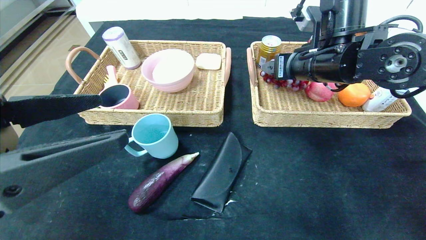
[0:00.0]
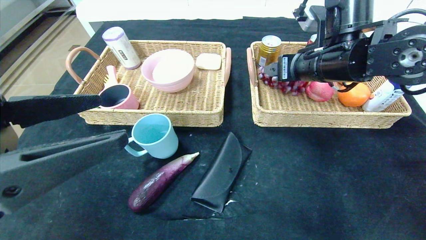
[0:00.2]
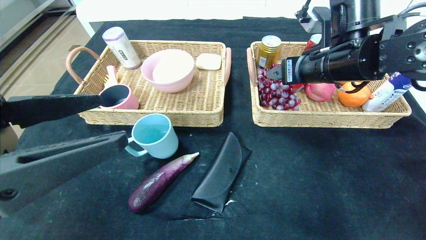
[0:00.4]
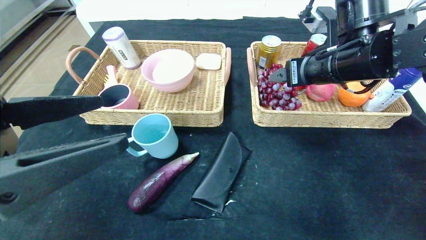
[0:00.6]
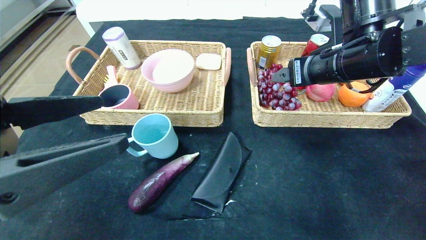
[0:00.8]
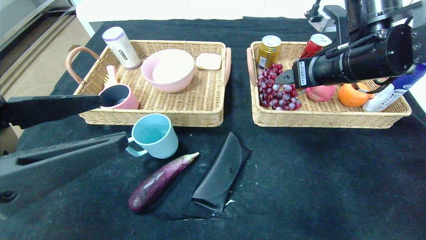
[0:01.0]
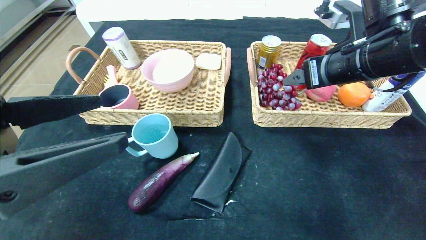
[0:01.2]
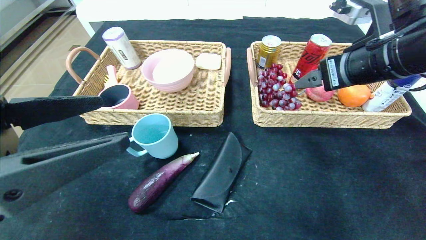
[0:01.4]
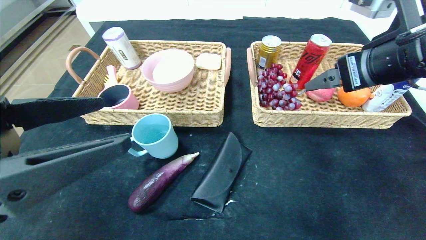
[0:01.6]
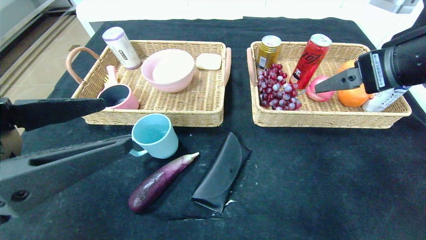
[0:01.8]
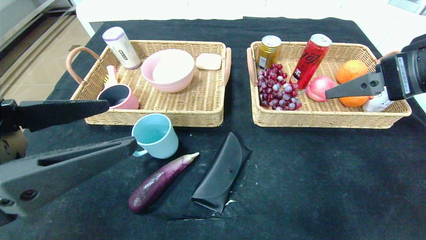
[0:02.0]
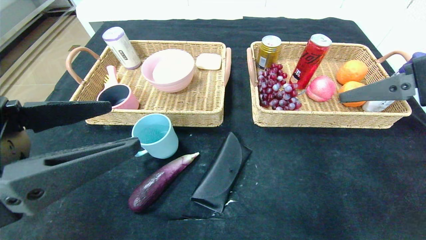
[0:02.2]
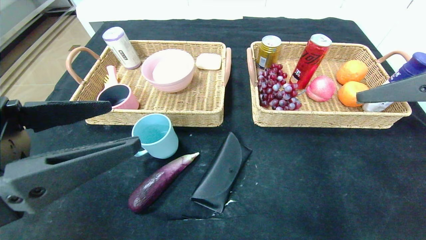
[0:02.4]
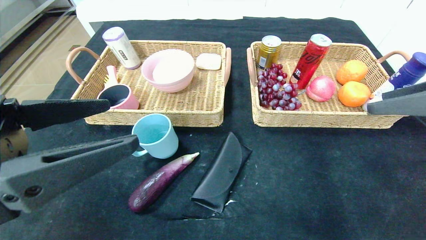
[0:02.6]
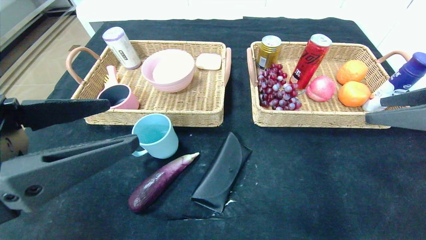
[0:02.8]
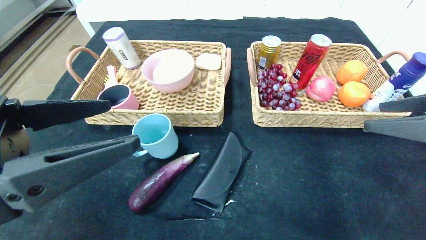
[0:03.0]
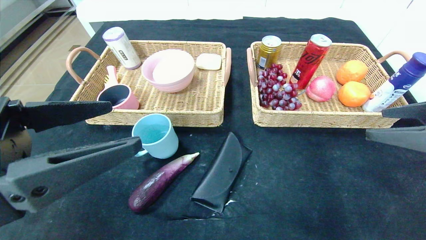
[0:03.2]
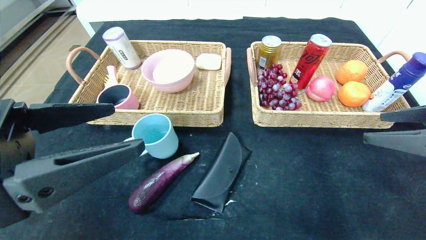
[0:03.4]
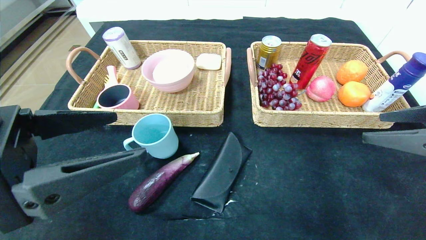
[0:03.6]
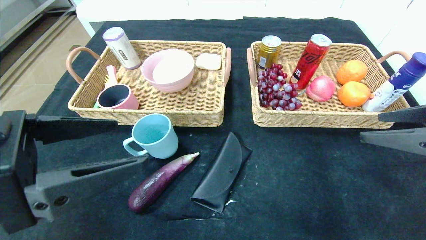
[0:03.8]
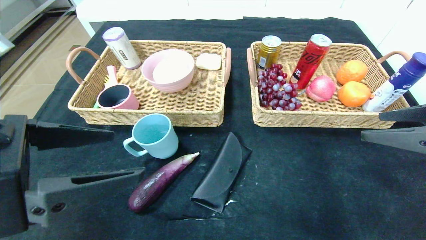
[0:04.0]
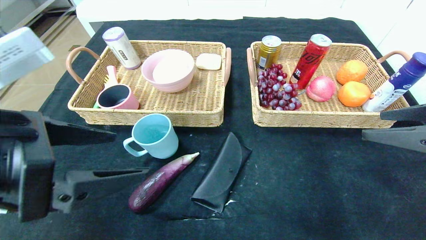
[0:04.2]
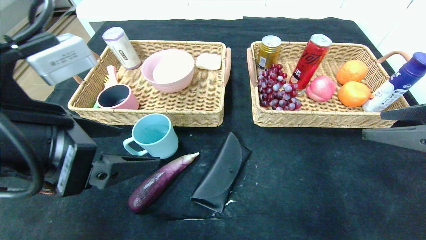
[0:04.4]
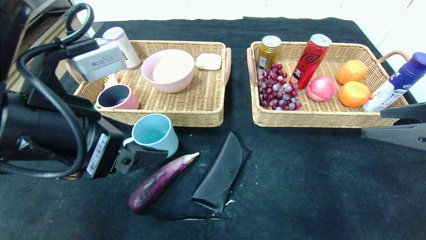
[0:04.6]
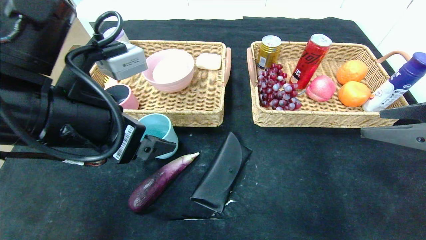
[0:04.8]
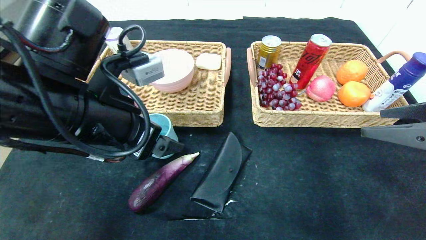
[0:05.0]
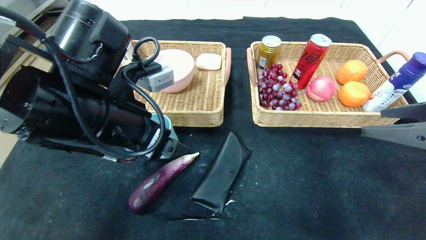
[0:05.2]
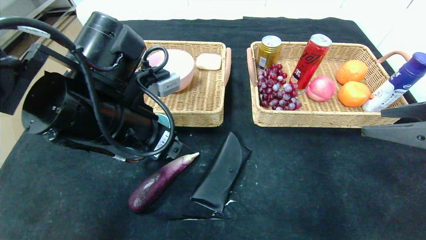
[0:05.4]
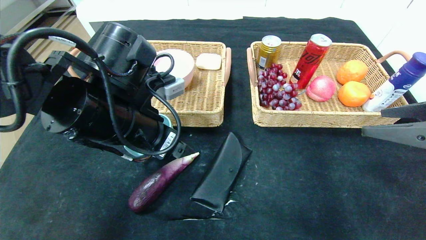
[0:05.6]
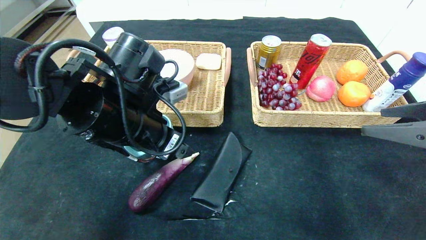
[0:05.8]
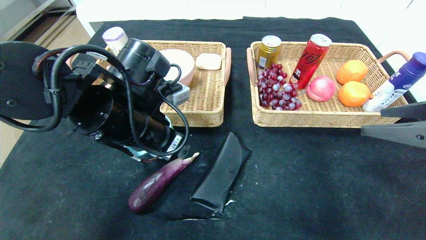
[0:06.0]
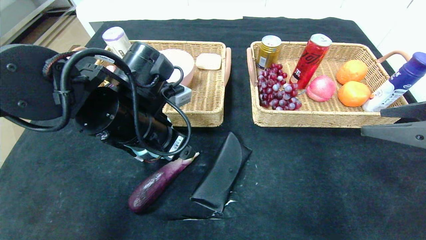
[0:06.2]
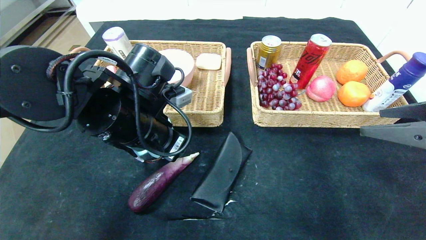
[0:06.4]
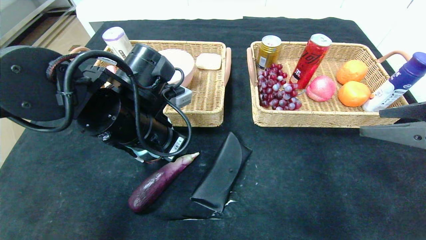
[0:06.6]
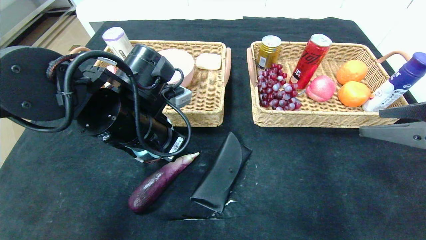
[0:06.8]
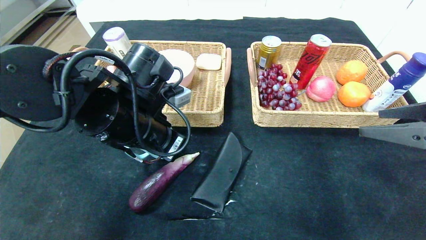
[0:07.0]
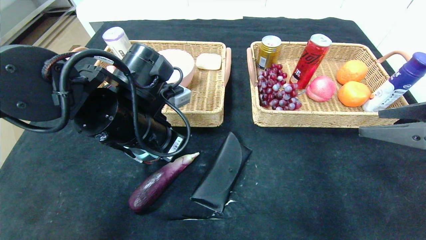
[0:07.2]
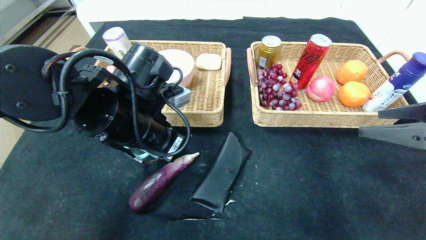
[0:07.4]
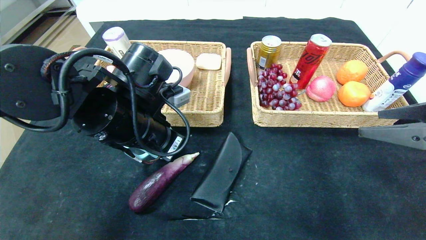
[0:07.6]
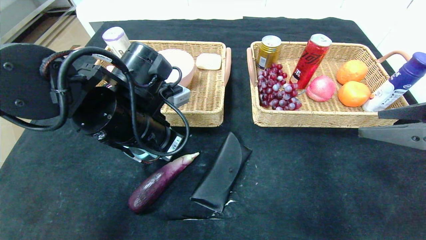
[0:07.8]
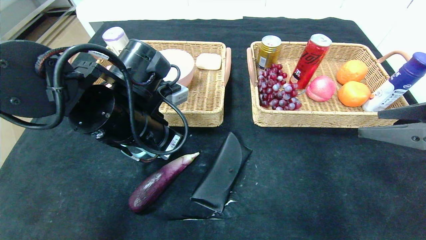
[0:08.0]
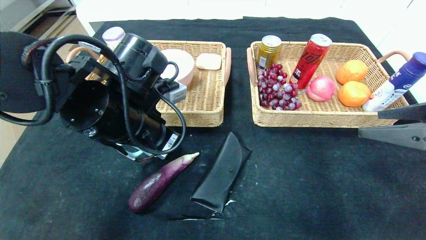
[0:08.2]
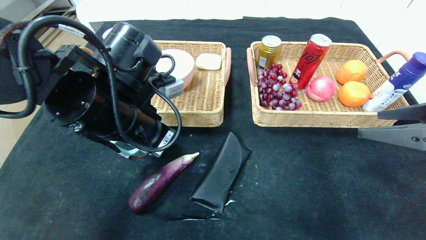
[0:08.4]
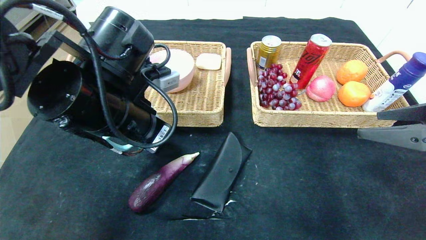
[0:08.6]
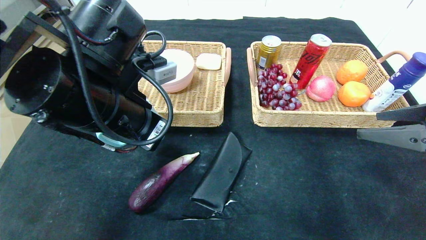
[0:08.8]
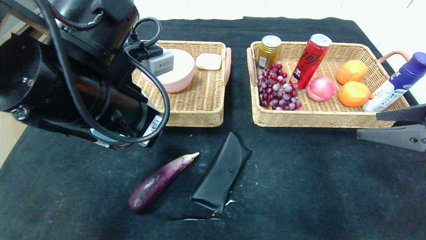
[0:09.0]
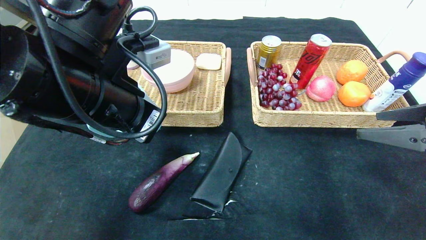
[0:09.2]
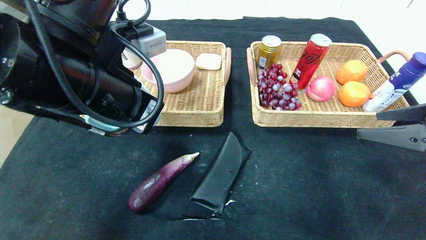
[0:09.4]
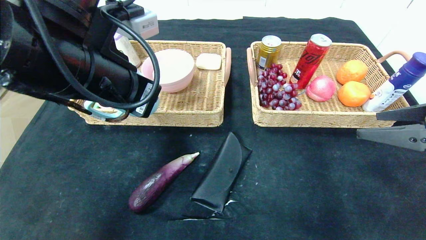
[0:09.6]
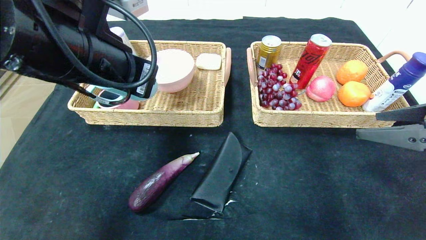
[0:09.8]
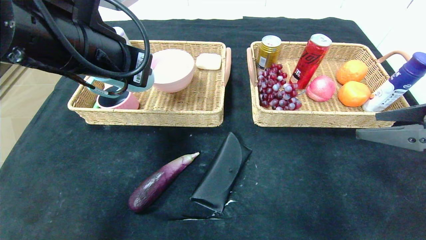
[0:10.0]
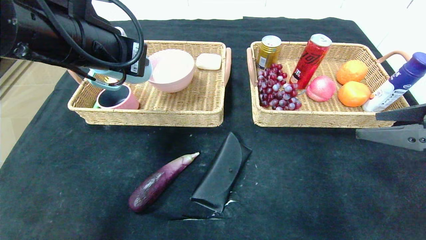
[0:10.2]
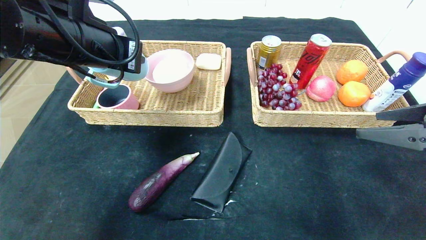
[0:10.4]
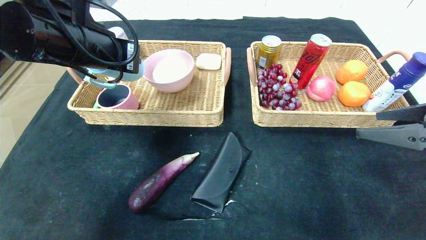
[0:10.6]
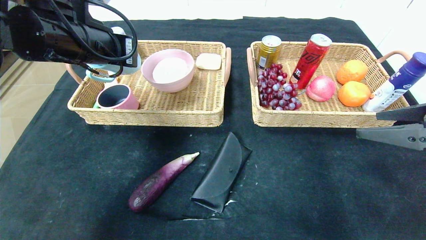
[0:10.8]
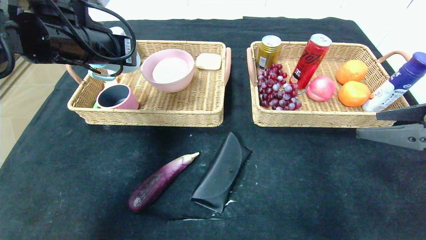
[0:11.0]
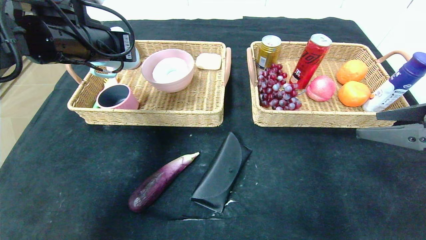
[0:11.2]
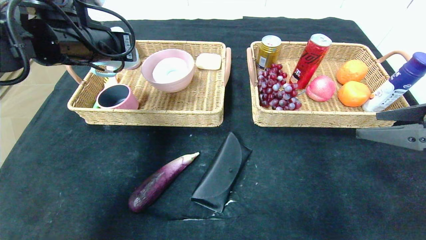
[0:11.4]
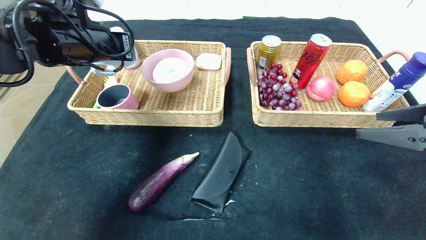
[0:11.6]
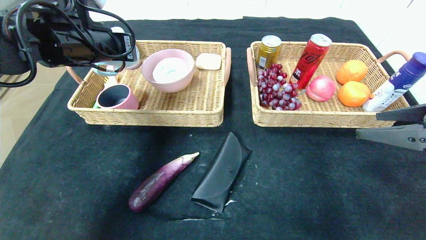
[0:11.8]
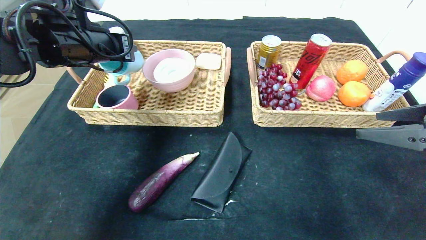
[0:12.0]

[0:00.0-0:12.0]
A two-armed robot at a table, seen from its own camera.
0.0 to 1.6 s: The right gripper heads backward and to the right, covering roughly 10 cm.
1.6 to 3.0 s: The right gripper goes some 10 cm to the right and backward.
4.4 to 6.0 s: The left gripper is displaced forward, to the right and downward by roughly 15 cm.
6.0 to 7.6 s: The left gripper closes its fingers.
7.6 to 9.0 s: The left gripper moves upward, approximately 5 cm.
9.0 to 10.4 s: The left gripper is displaced forward and to the left by about 10 cm.
10.4 to 12.0 s: The left gripper goes some 5 cm forward.

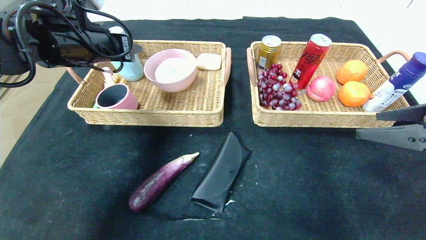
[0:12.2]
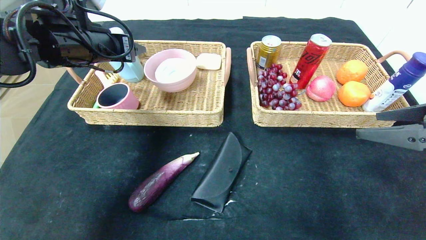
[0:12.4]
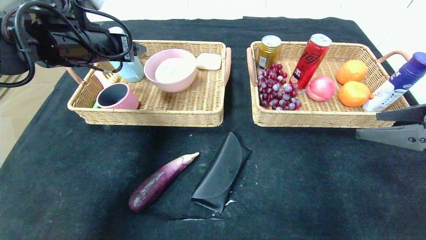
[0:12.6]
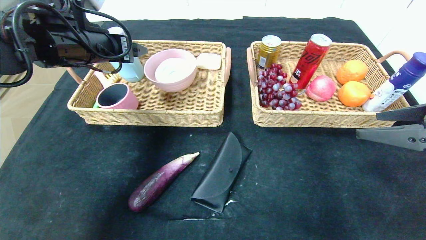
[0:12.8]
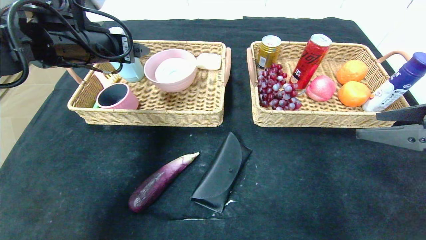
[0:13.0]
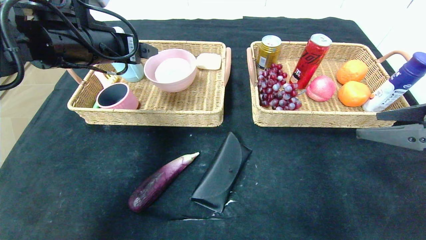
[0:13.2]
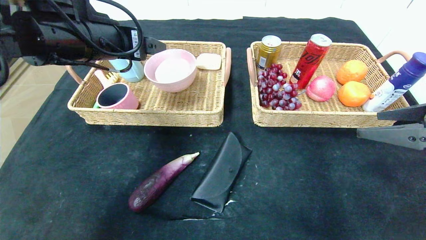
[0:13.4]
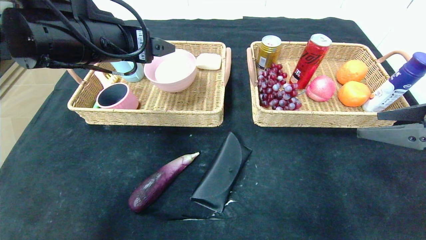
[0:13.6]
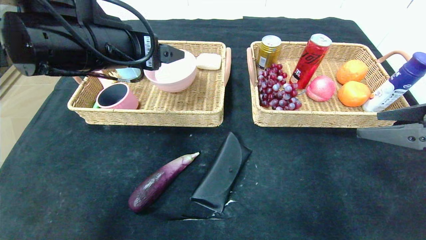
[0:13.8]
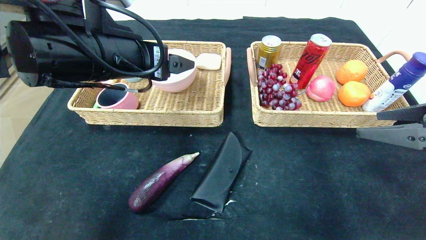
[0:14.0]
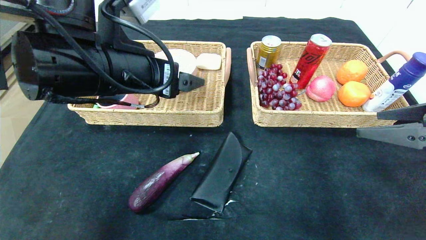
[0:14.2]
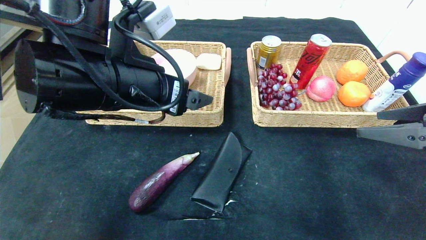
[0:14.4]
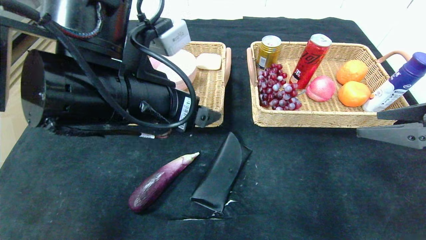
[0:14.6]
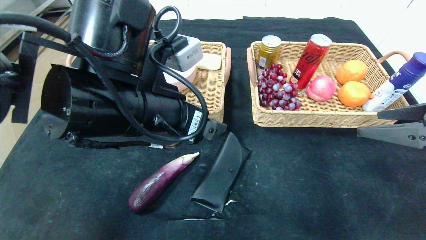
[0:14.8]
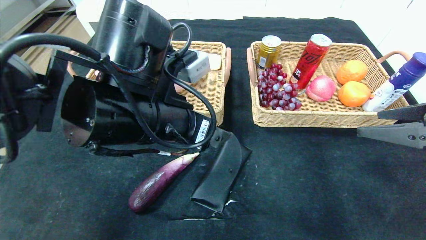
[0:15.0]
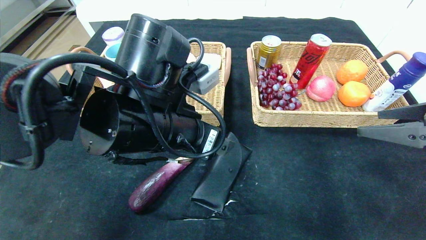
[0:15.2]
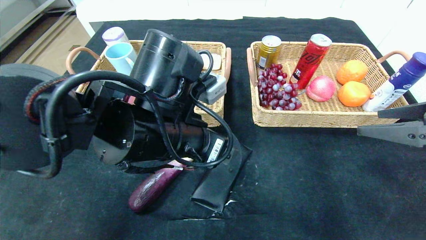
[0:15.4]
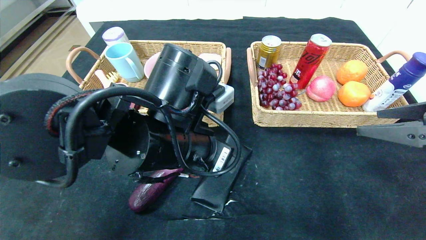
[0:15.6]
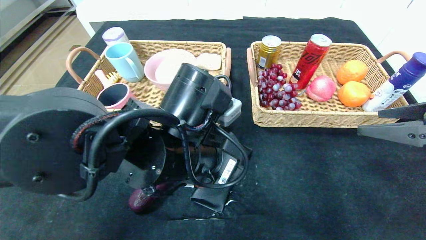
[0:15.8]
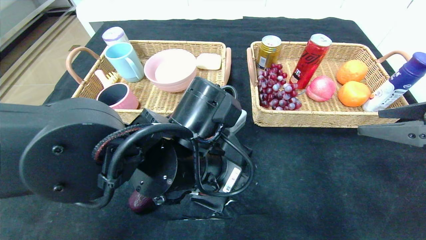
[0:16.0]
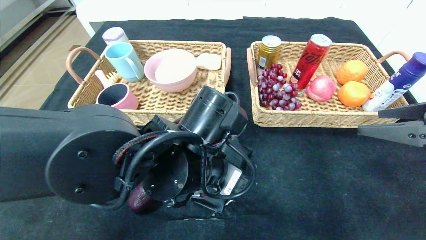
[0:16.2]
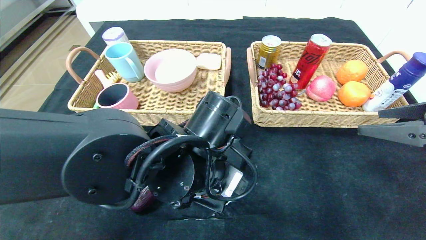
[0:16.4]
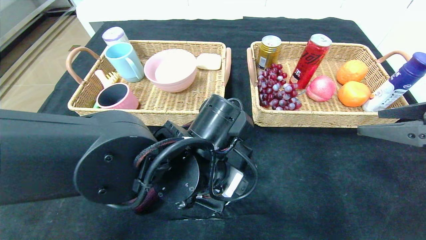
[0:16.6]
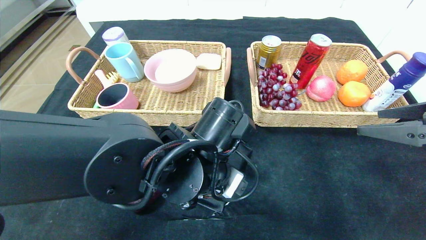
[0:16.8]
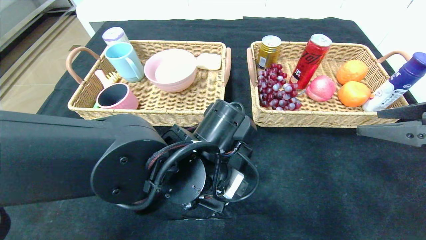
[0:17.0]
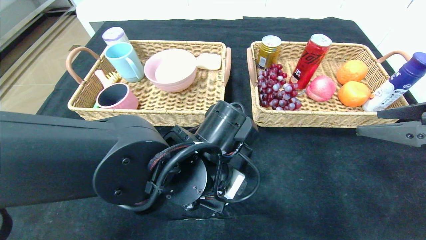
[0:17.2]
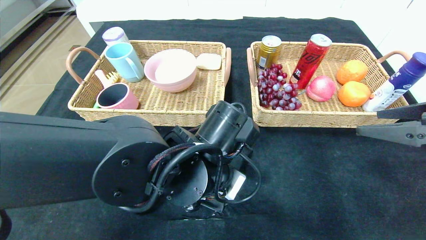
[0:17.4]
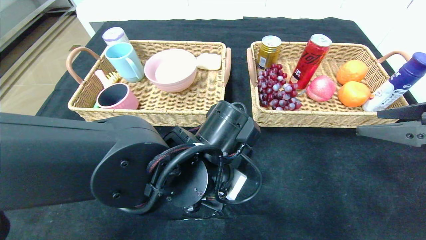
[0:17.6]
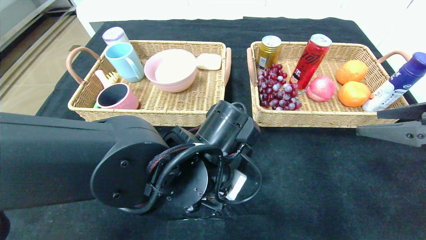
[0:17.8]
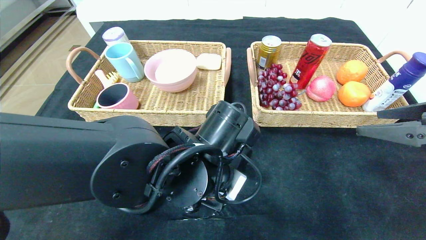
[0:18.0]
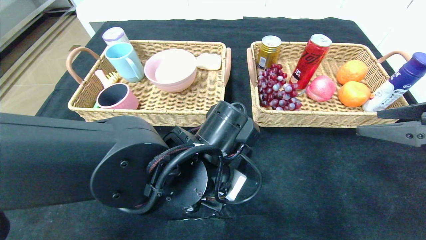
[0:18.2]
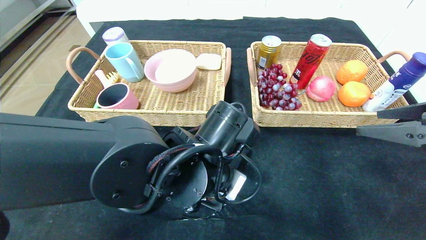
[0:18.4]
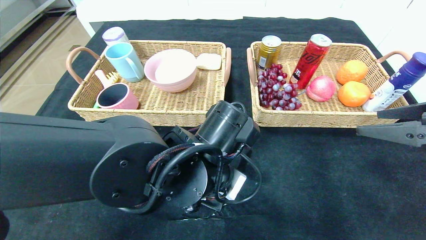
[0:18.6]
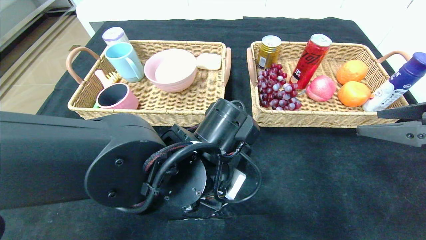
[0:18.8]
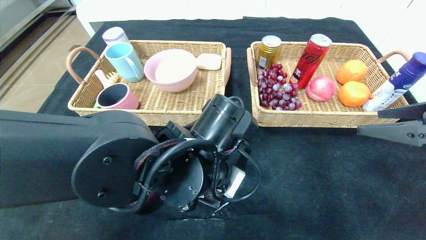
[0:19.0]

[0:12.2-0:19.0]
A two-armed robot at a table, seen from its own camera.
12.2 to 13.6 s: The left gripper is displaced backward and to the right by some 10 cm, and opens its fingers.
13.6 to 15.0 s: The left gripper heads to the right, downward and backward, covering approximately 15 cm.
15.0 to 16.2 s: The left gripper moves downward and to the right, approximately 10 cm.
16.2 to 17.6 s: The left gripper closes.
17.6 to 19.0 s: Both grippers stay about where they are.
